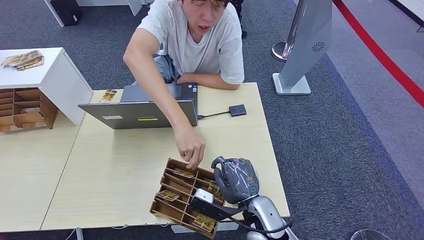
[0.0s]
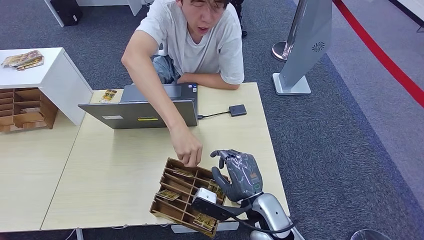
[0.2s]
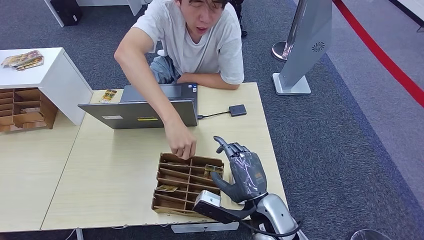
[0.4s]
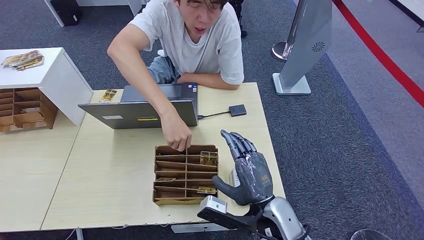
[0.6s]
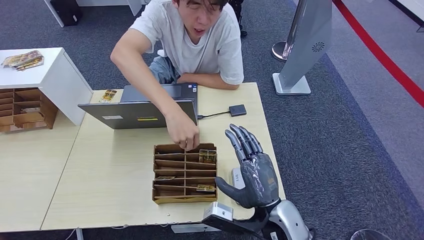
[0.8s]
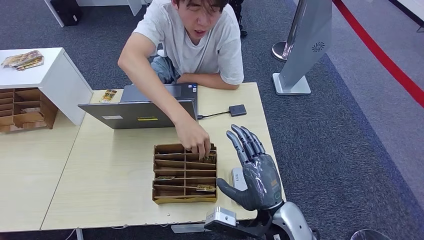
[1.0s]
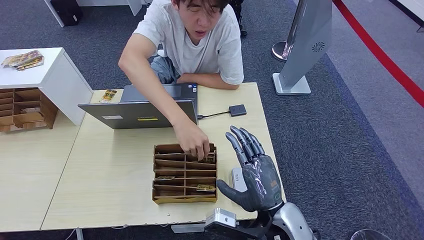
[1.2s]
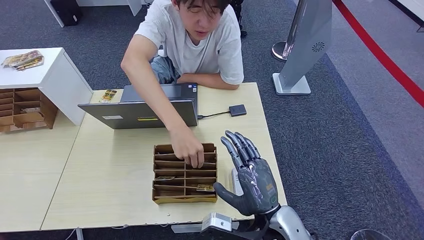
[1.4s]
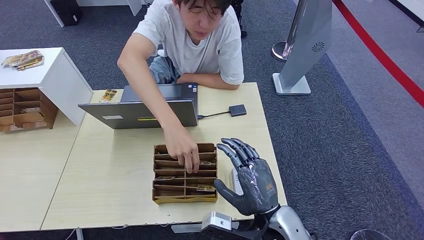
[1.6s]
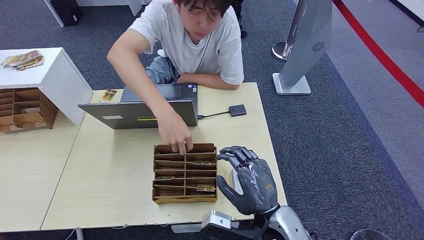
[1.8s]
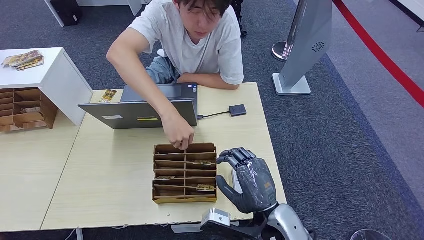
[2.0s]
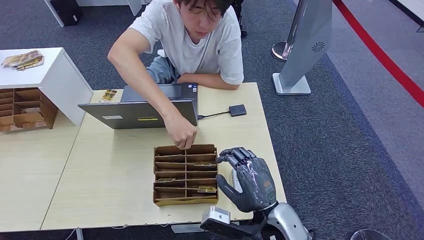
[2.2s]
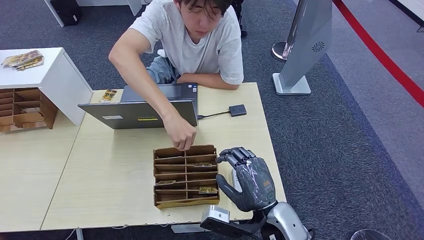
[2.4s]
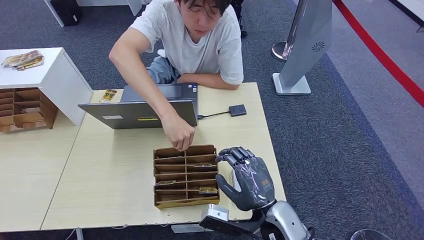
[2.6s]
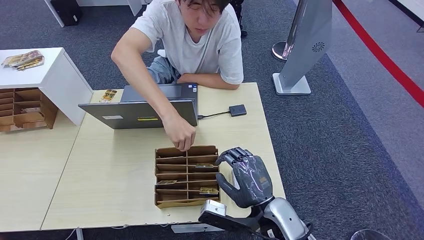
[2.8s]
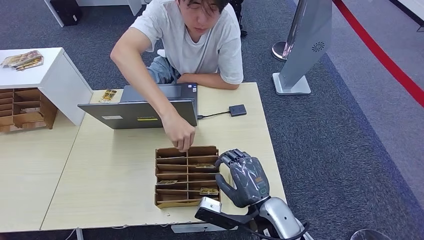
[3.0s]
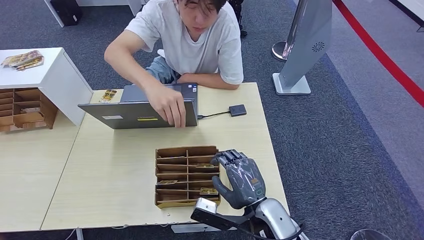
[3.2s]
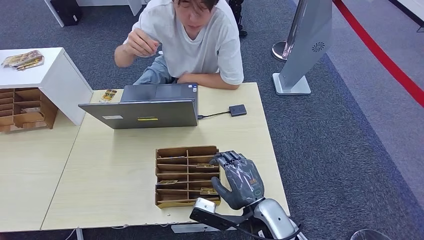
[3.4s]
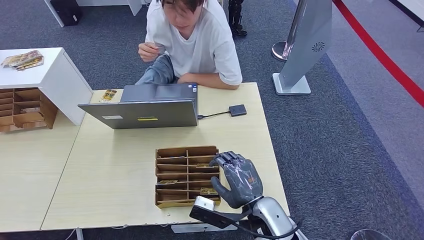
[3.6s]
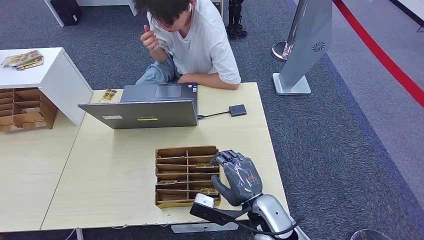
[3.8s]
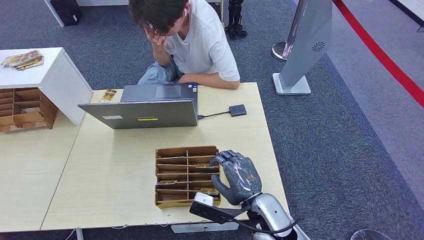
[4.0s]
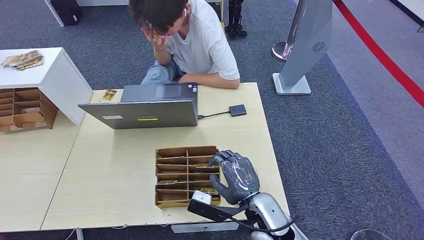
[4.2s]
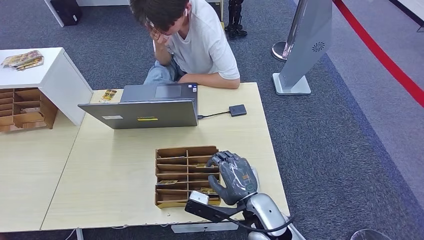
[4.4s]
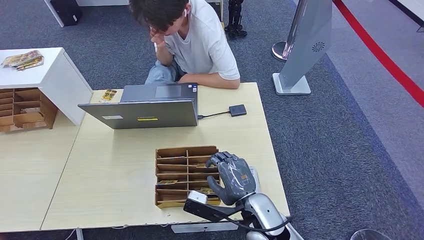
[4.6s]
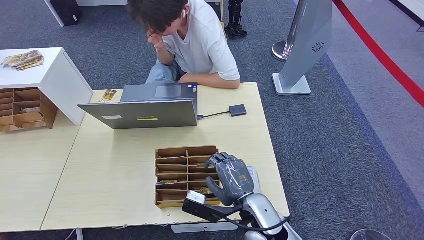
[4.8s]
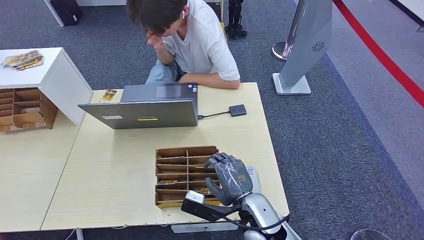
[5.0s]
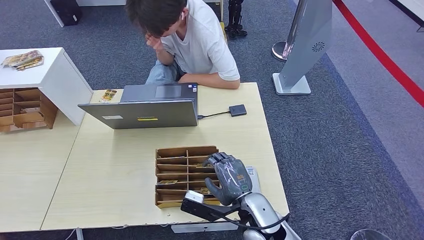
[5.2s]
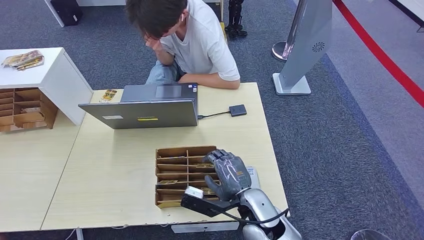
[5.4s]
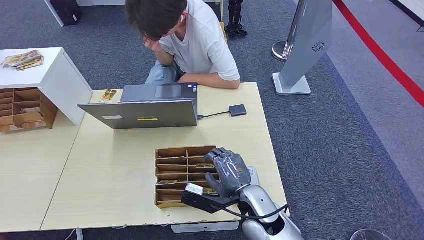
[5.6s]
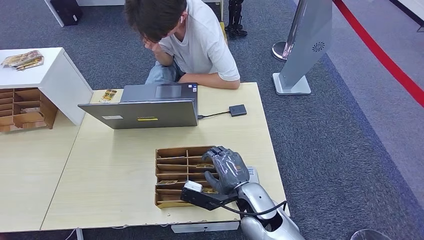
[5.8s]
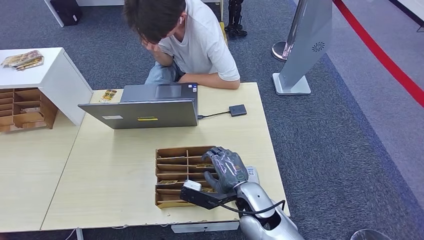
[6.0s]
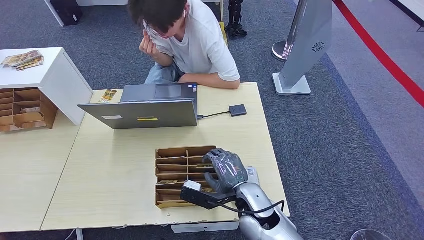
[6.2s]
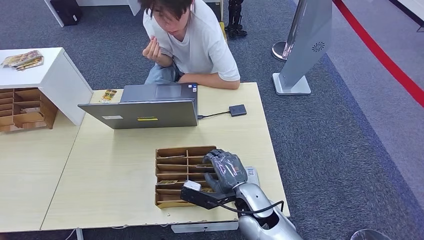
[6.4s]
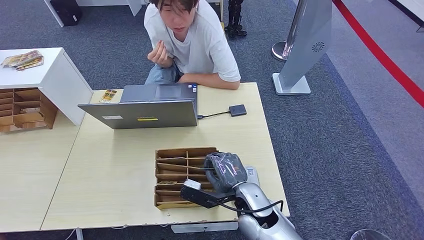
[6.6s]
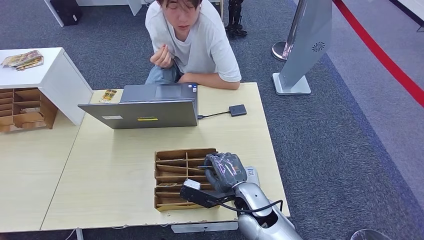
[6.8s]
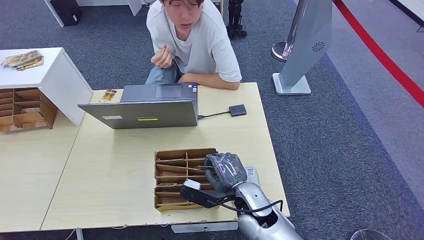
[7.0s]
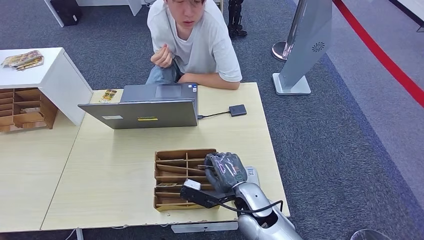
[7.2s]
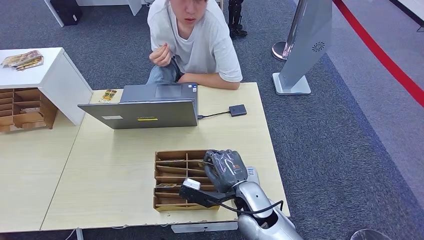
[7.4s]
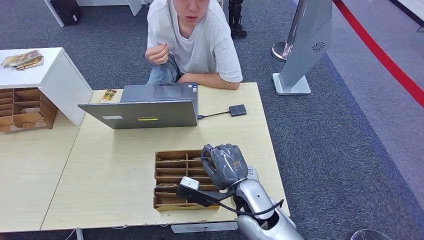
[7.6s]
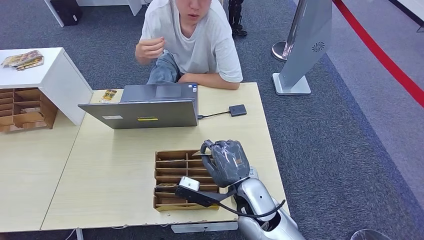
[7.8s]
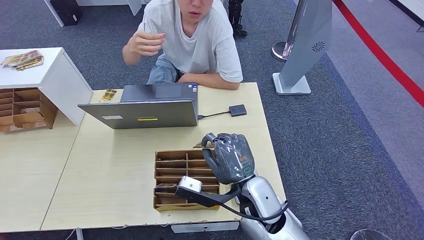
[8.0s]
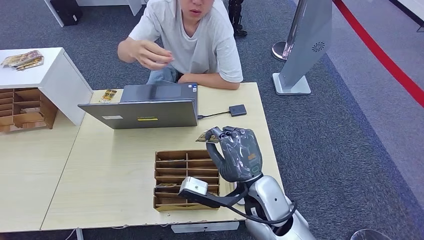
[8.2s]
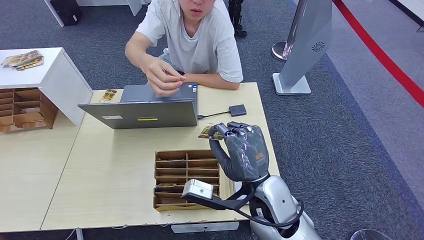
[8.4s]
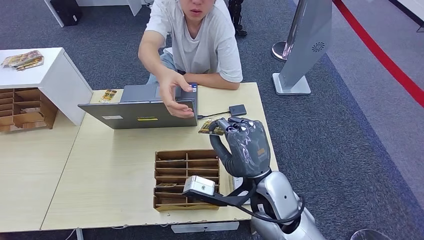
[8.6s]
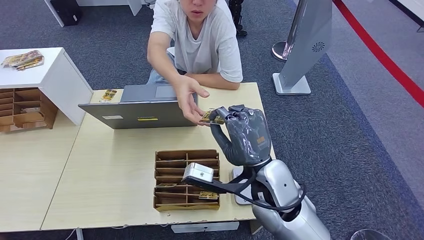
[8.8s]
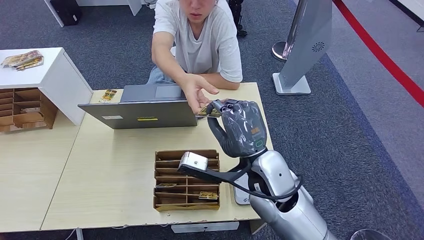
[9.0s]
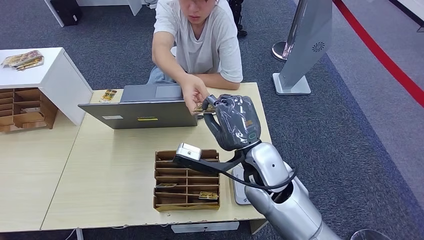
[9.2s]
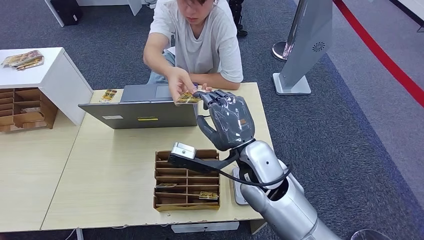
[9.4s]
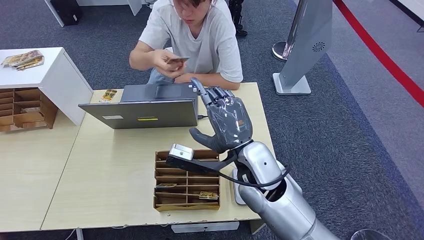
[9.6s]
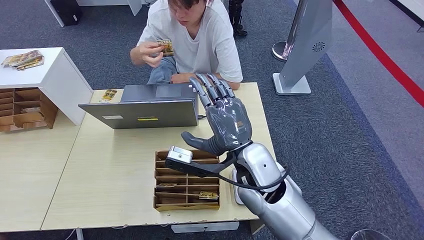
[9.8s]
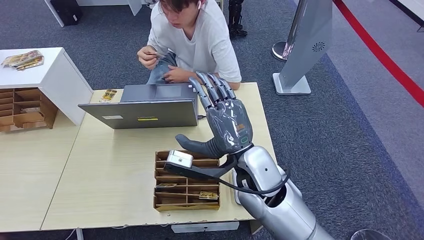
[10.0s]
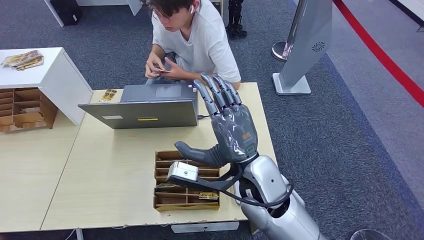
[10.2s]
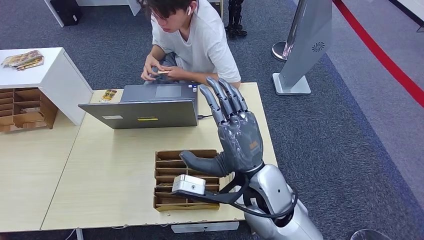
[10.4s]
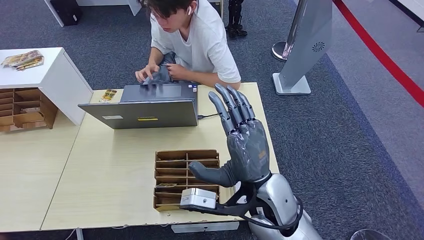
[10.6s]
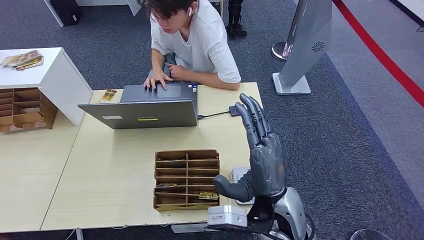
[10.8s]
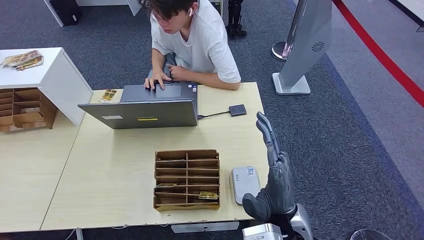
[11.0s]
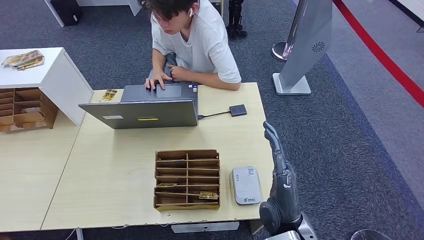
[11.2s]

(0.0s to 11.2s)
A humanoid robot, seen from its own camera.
Step, 6.6s - 8.4s: Pick up the room key from the key card box.
Step, 8.6s - 11.2s: Hand the room key to the person.
0.0s - 1.6s: The right hand goes about 5 cm upward.
1.6s - 4.8s: The hands move only a little.
4.8s - 6.4s: There are only small adjustments of the hands.
6.4s - 8.0s: The right hand moves upward, approximately 5 cm.
8.0s - 9.6s: The right hand moves upward, about 5 cm.
9.6s - 11.2s: The right hand travels backward, downward and to the right by roughly 15 cm.
